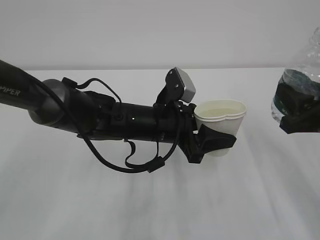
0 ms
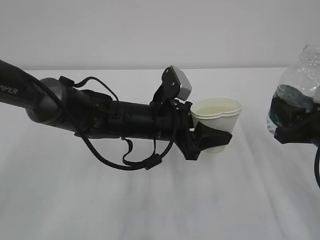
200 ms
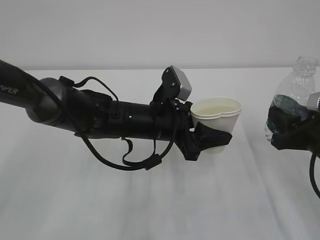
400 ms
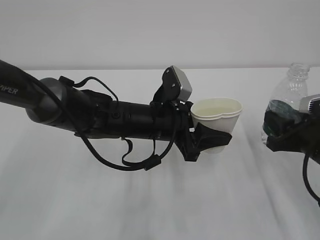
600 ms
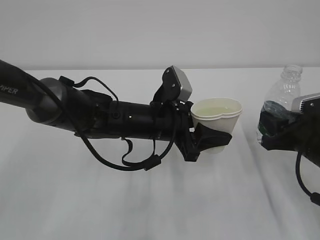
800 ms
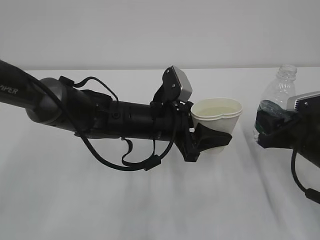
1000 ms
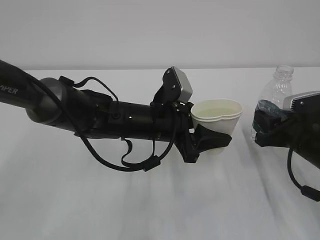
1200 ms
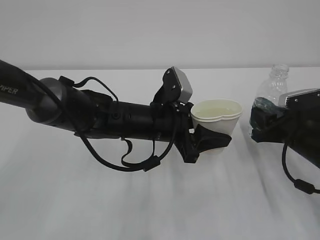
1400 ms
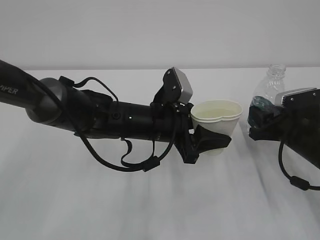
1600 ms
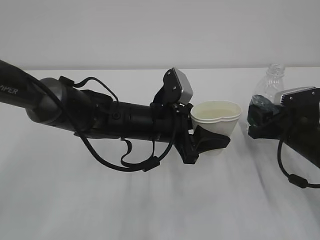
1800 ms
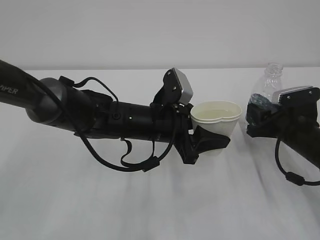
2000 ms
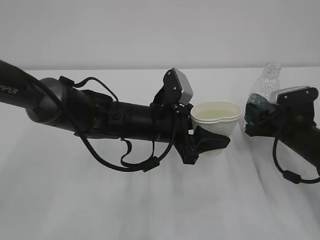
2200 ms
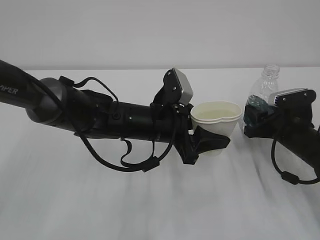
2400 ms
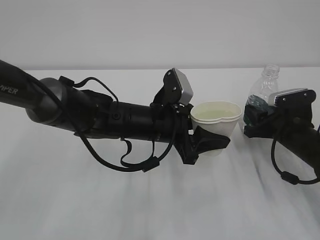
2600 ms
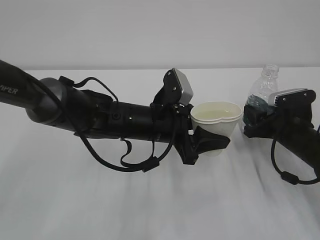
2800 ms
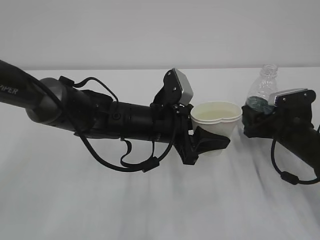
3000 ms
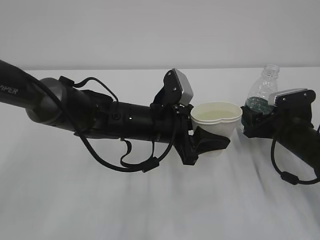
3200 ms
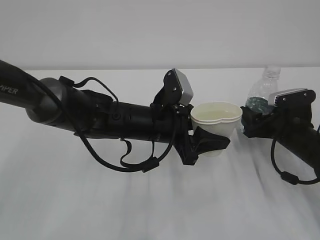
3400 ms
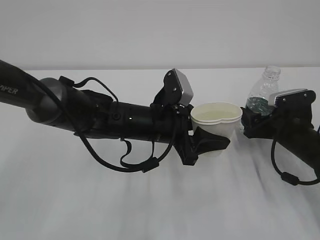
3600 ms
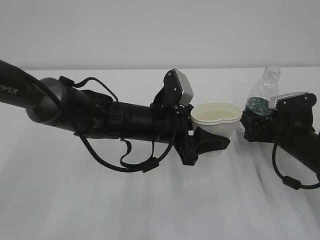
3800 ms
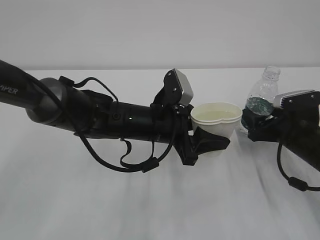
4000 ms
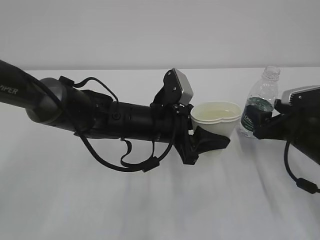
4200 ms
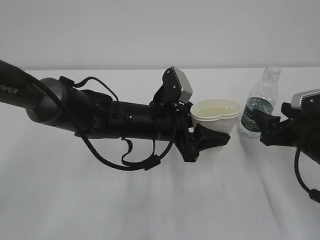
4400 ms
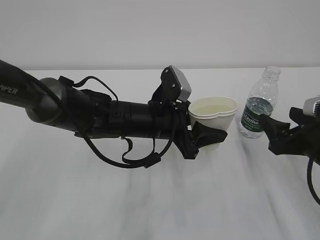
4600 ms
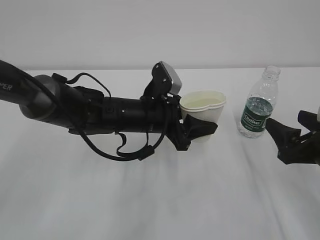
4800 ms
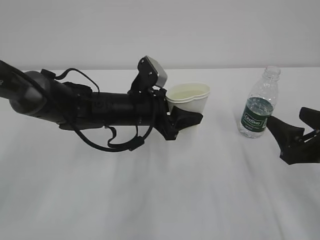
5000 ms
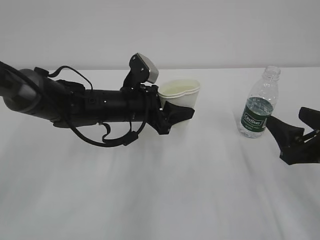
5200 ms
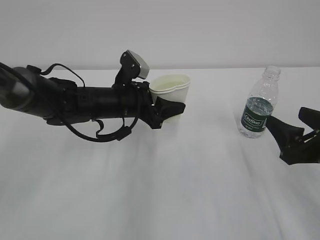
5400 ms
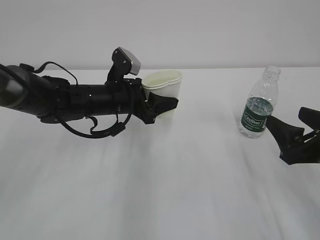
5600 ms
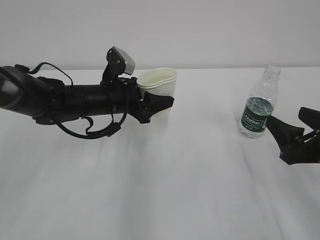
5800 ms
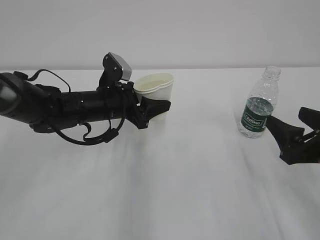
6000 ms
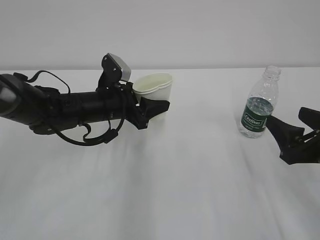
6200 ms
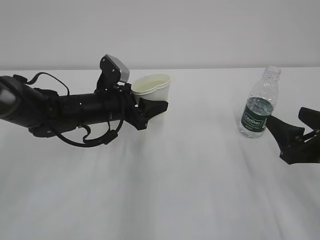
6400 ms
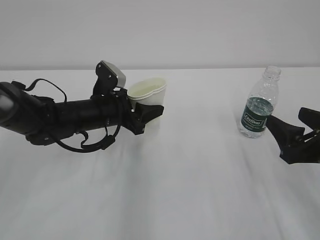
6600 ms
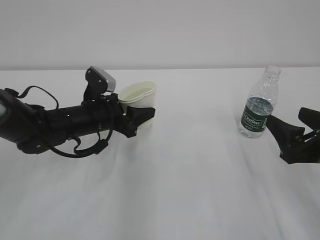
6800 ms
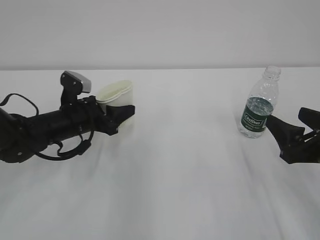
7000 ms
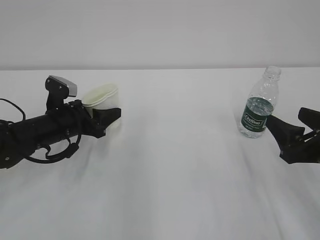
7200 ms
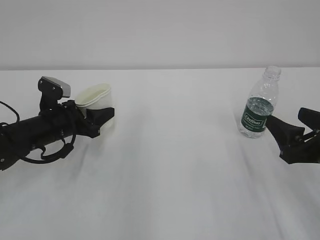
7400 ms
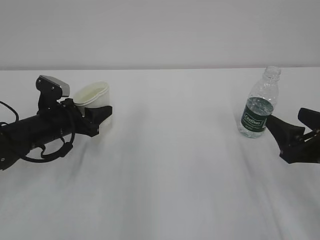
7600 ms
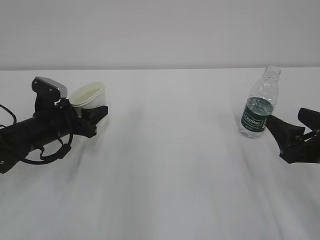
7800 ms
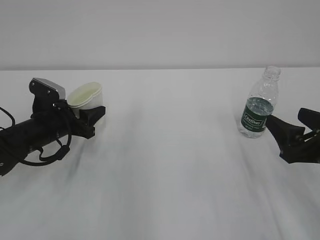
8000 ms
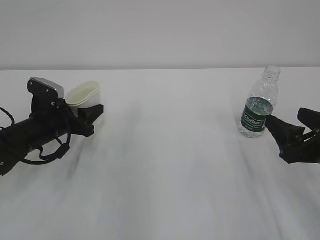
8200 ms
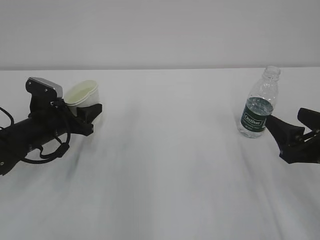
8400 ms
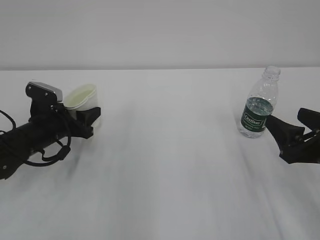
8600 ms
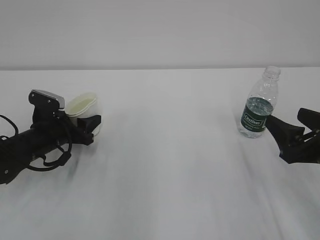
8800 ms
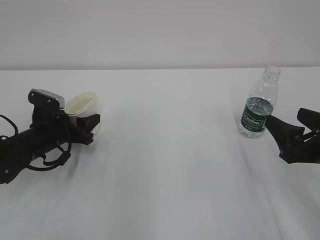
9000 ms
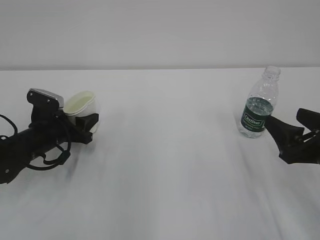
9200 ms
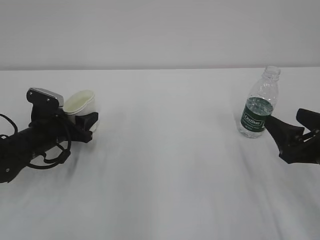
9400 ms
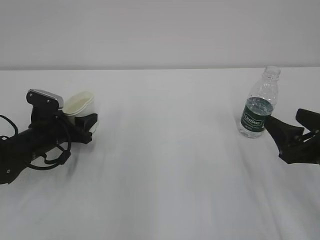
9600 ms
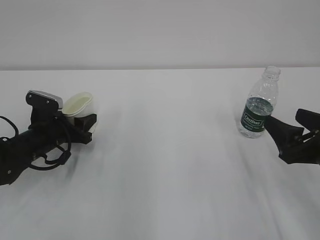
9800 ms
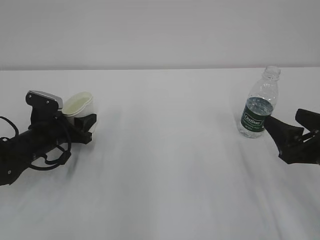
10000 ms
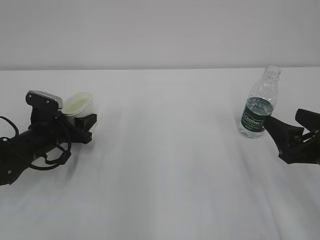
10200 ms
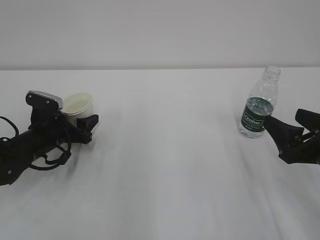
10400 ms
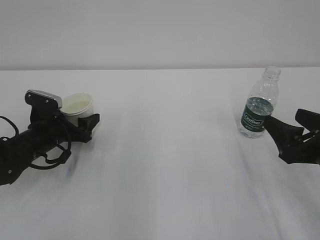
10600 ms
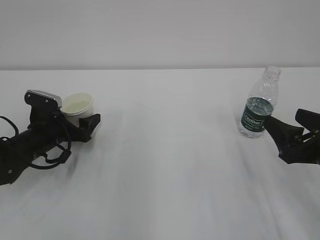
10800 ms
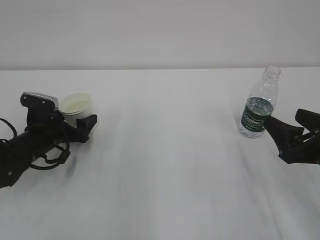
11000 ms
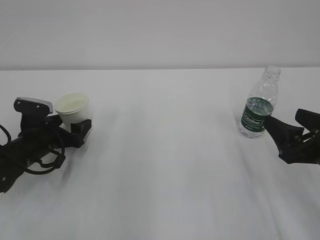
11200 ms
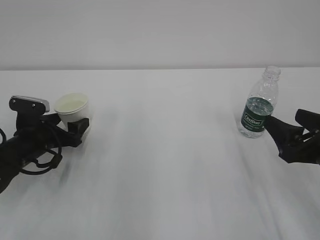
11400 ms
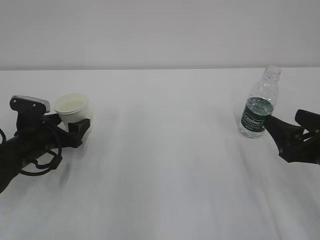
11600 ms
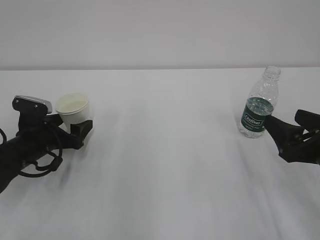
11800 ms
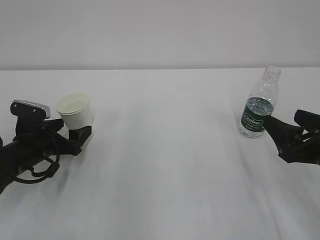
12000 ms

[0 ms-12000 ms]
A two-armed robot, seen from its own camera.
0 ms to 1600 ms: The right gripper moves downward and forward, approximately 10 cm.
1600 ms to 3000 ms: The grippers stay close to where they were, moving slightly.
3000 ms to 4400 ms: The right gripper heads backward, covering roughly 5 cm, and opens up.
4400 ms to 6000 ms: The left gripper moves to the left and forward, approximately 10 cm. Meanwhile the right gripper goes roughly 5 cm backward.
6000 ms to 7600 ms: The left gripper is displaced to the left by approximately 10 cm.
7600 ms to 9000 ms: There are only small adjustments of the grippers.
9000 ms to 10400 ms: Both grippers stay about where they are.
10400 ms to 12000 ms: The left gripper opens its fingers.

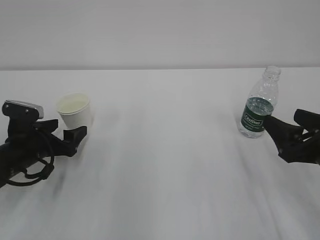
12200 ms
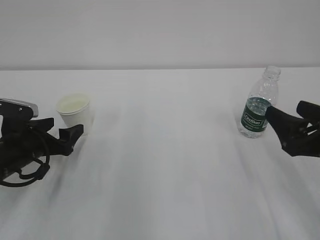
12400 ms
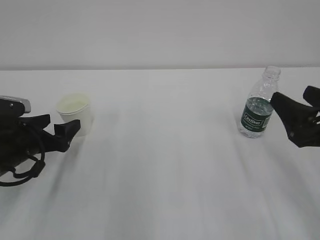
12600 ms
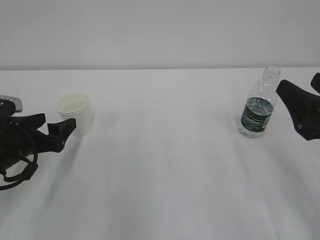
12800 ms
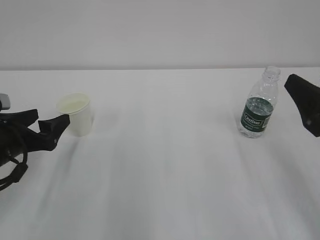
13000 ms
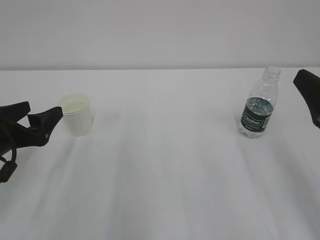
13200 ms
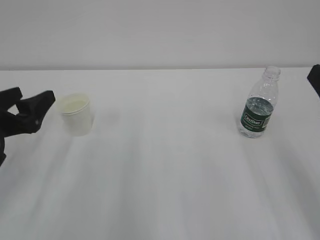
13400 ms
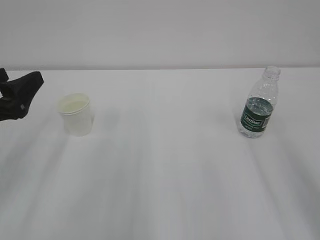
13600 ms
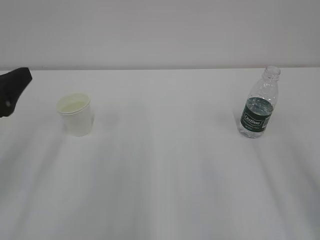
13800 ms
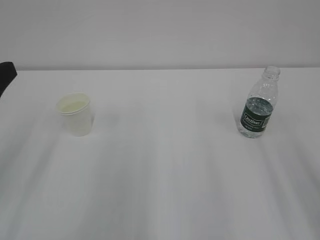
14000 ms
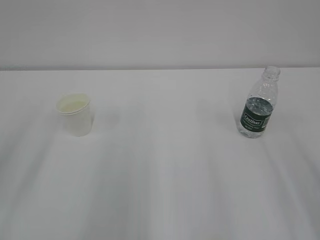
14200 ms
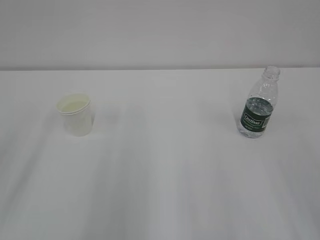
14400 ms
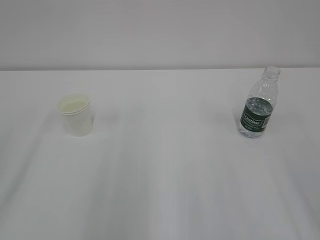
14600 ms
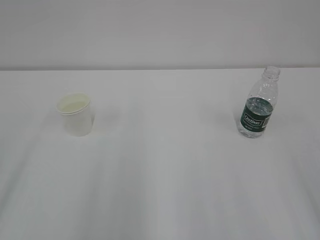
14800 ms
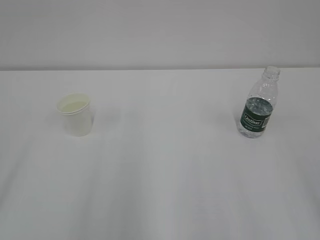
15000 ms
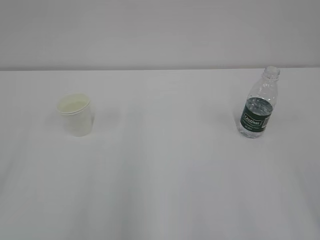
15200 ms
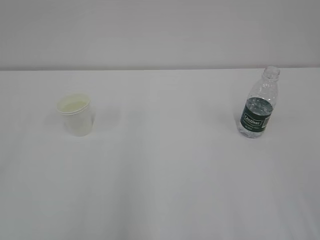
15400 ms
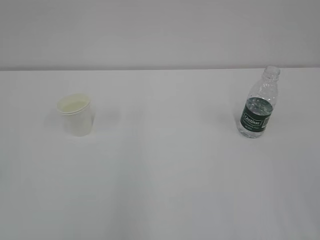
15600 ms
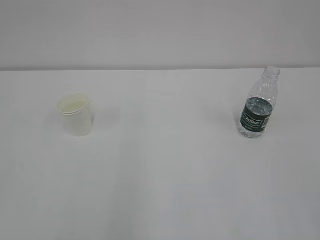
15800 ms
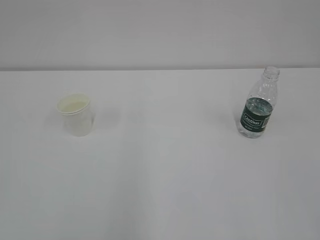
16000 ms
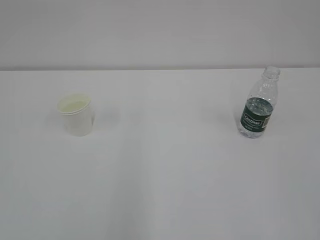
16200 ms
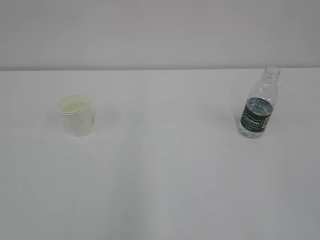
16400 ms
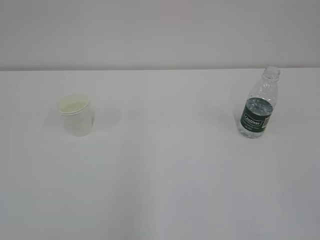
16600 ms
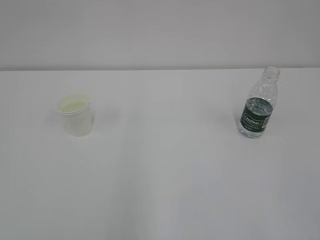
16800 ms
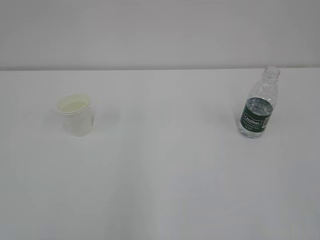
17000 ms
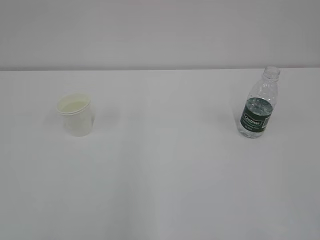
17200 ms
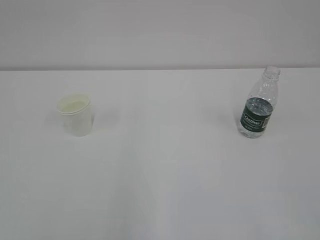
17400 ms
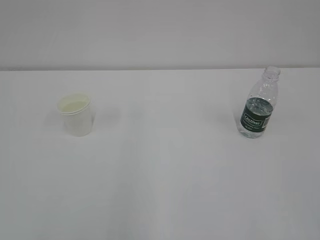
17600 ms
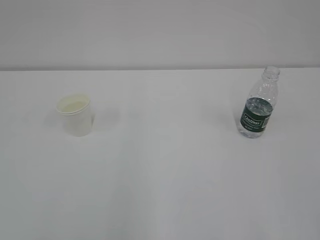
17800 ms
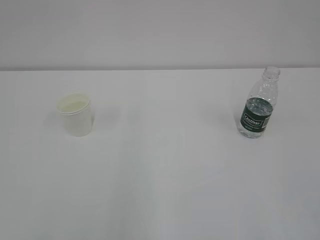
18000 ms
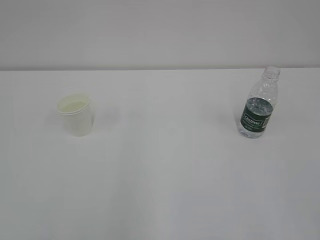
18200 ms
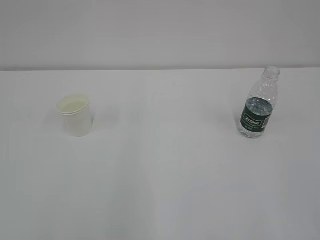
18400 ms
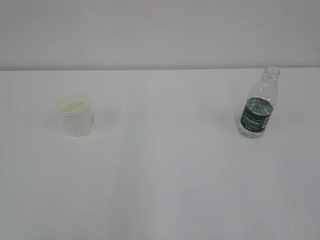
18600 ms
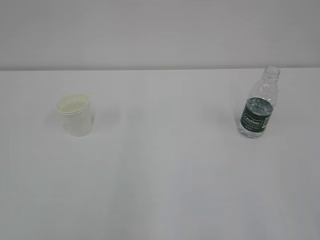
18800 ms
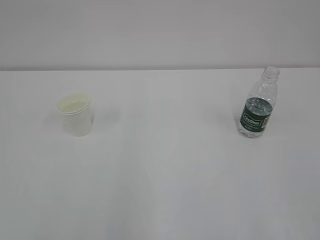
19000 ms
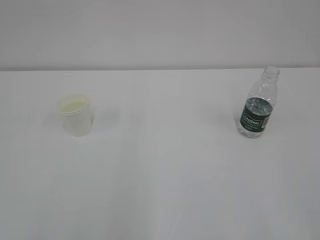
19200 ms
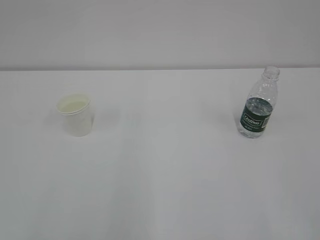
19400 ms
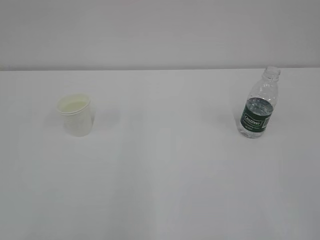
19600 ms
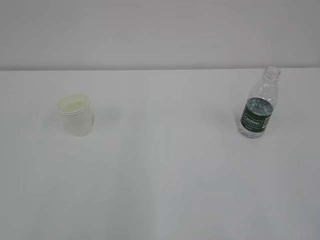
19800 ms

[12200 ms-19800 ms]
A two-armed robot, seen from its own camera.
12200 ms to 13800 ms: The two grippers go approximately 15 cm upward and backward.
13800 ms to 15200 ms: The left gripper heads backward and upward, covering approximately 15 cm.

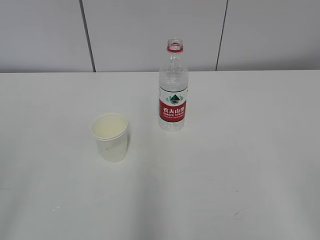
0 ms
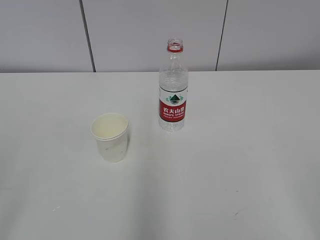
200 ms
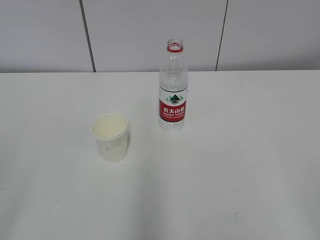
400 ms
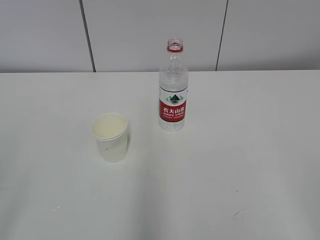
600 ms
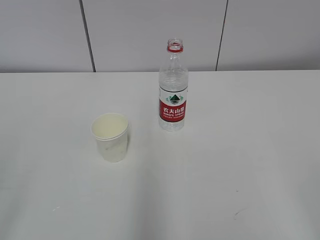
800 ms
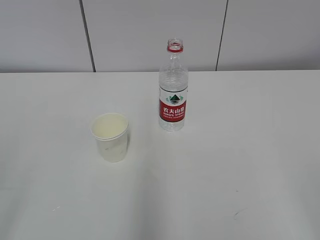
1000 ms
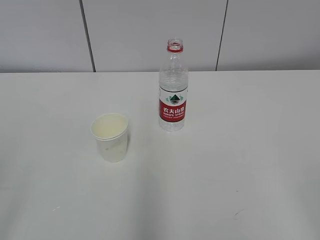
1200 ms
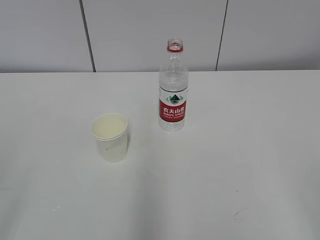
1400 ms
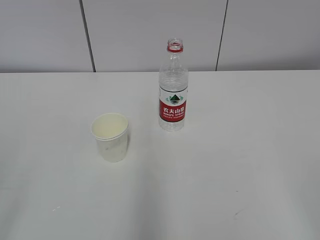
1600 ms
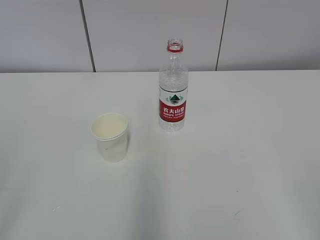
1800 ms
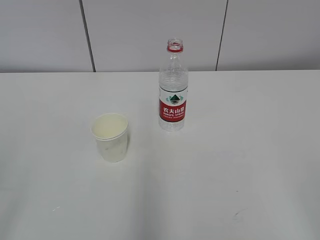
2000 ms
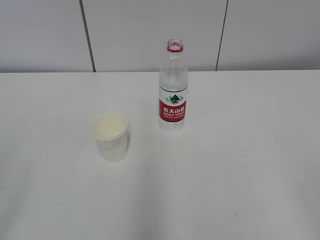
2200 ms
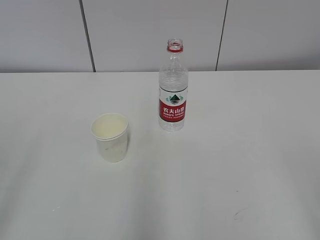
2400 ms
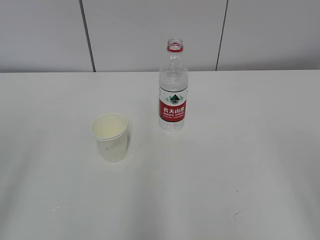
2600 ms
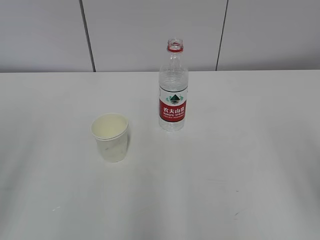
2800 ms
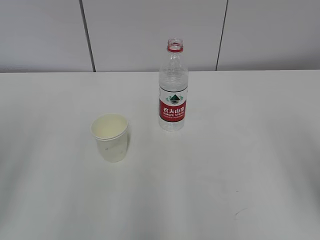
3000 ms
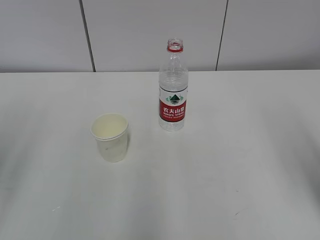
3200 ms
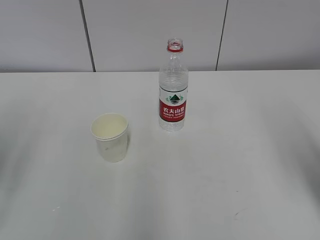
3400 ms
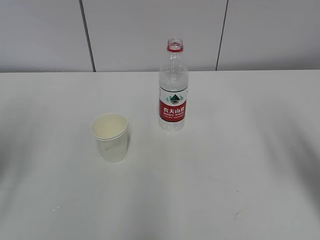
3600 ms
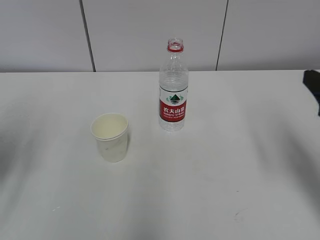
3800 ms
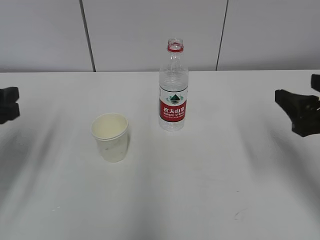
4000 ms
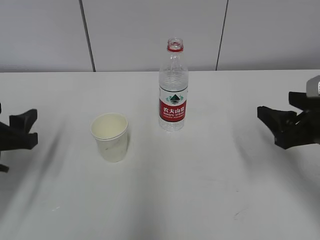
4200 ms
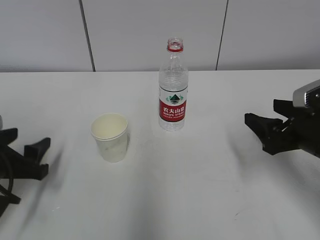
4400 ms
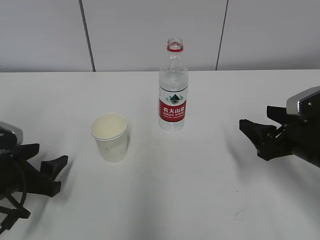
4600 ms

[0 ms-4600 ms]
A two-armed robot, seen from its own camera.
3000 ms to 4600 ms: The left gripper travels downward and forward by about 25 cm, while the right gripper moves forward and downward, some 25 cm.
